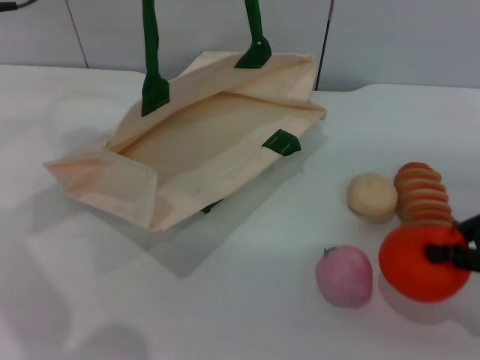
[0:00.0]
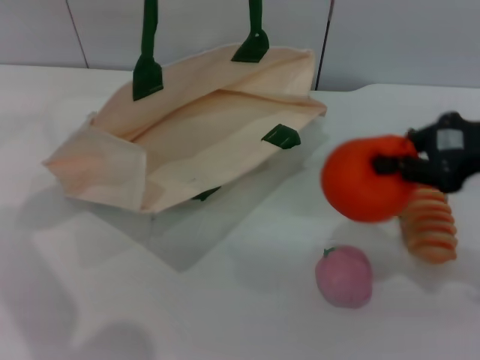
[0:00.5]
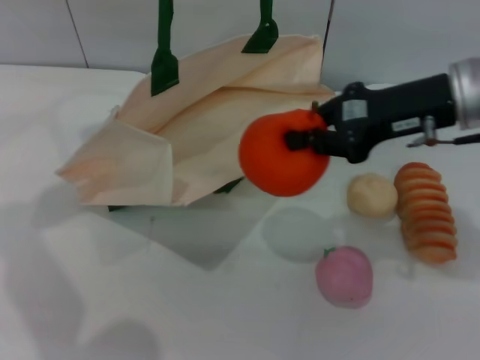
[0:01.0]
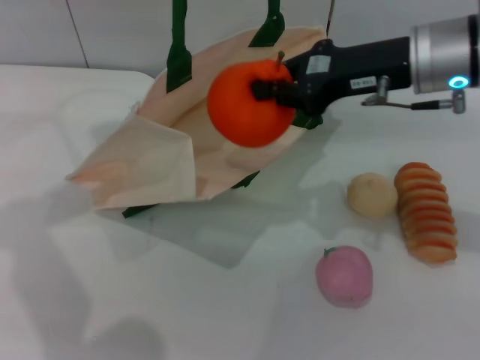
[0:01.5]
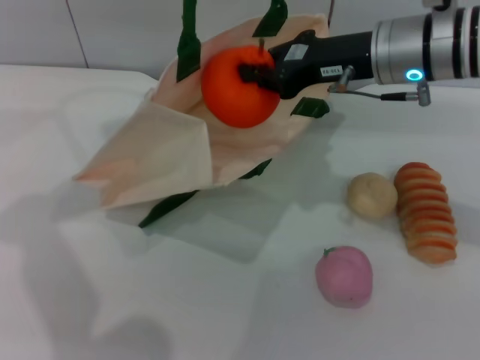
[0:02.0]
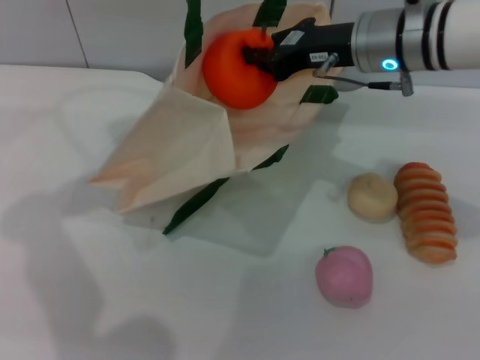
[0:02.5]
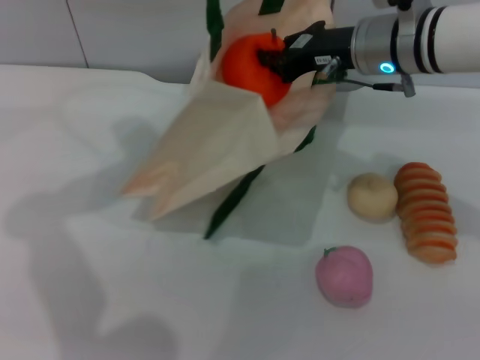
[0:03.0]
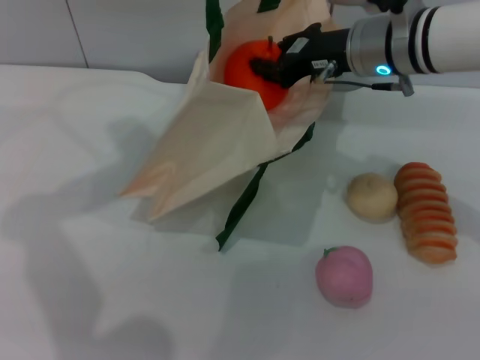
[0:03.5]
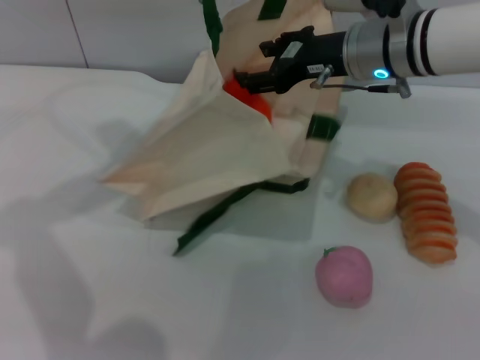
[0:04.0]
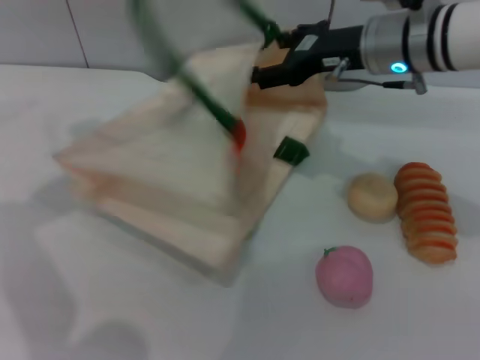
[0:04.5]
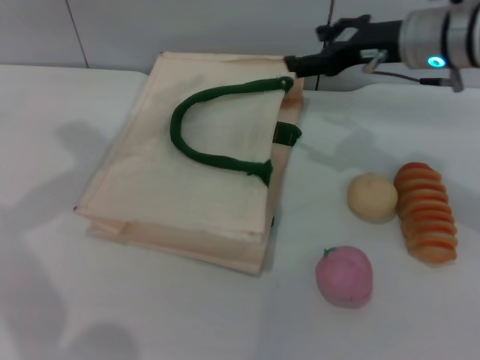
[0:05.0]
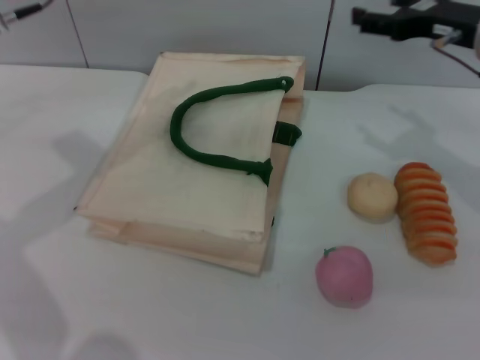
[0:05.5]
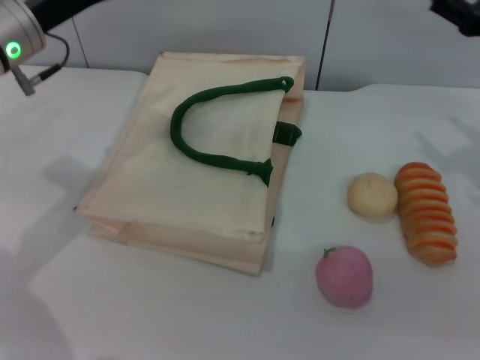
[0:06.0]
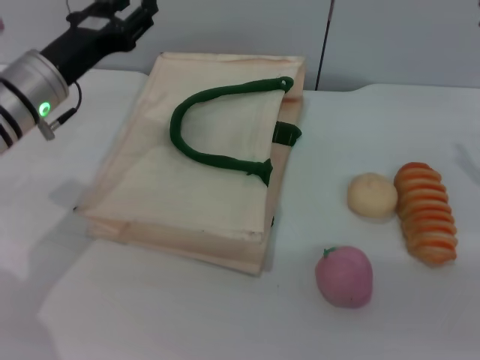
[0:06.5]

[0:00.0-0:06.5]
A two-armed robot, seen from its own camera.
Task of the whole recording: pick up the orange from the table and place it in the white handbag.
Step, 0:00.5 to 0:04.0: Place the orange into the woven bag with the right gripper.
Step, 0:04.5 to 0:05.0: Lower the woven bag with the left gripper to close it.
0:00.0 to 0:02.0: The right gripper moves to the left and forward, roughly 20 cm, while the left gripper moves roughly 5 cm.
0:02.0 to 0:04.5: The right gripper opens.
0:04.5 to 0:06.5: The right gripper travels to the right and backward by approximately 20 cm, while the left gripper shifts about 15 cm downward, and opens up.
